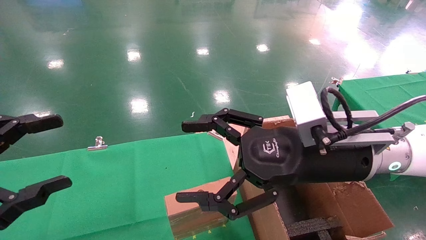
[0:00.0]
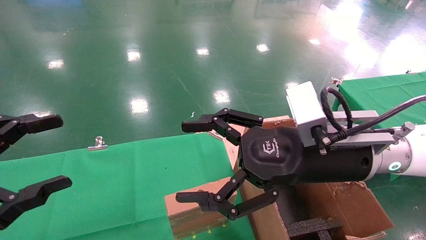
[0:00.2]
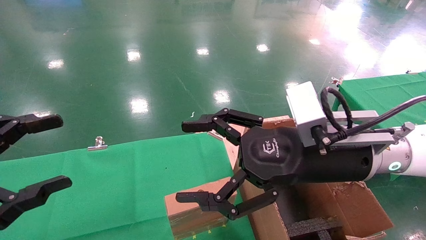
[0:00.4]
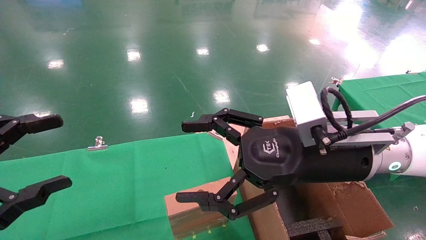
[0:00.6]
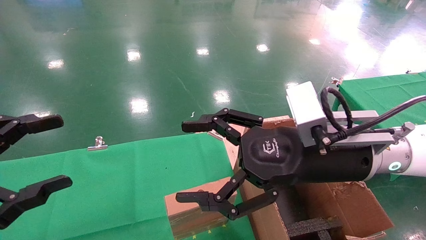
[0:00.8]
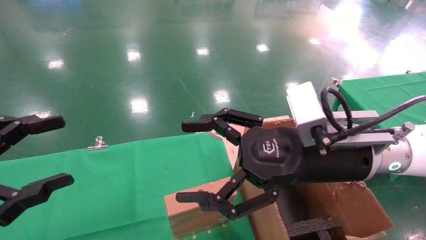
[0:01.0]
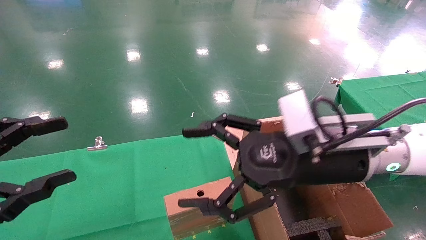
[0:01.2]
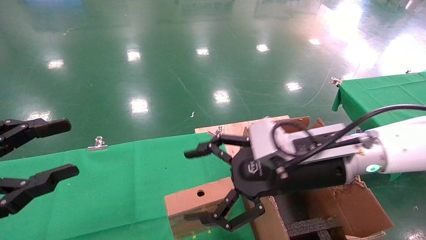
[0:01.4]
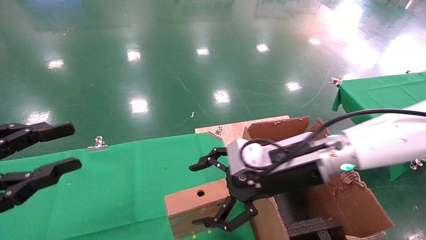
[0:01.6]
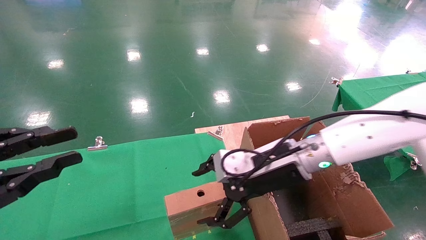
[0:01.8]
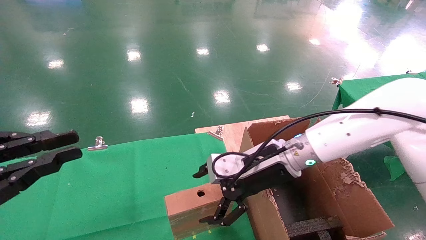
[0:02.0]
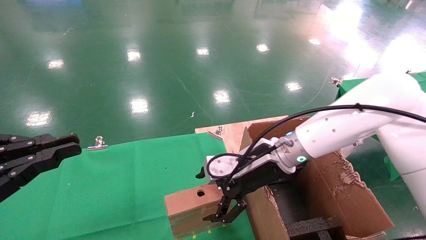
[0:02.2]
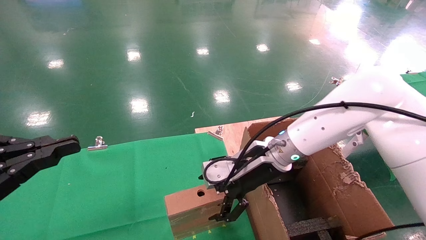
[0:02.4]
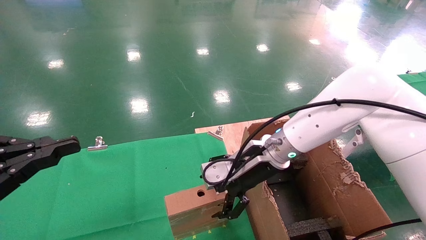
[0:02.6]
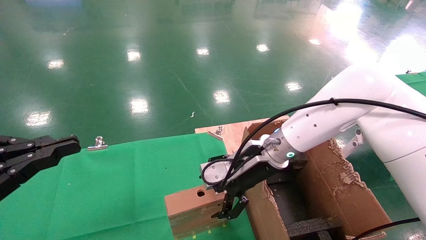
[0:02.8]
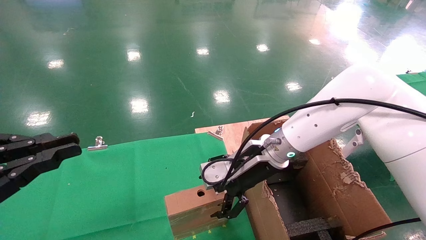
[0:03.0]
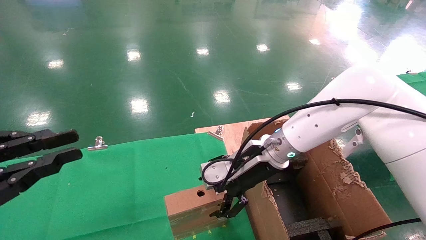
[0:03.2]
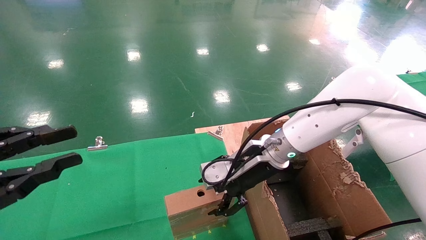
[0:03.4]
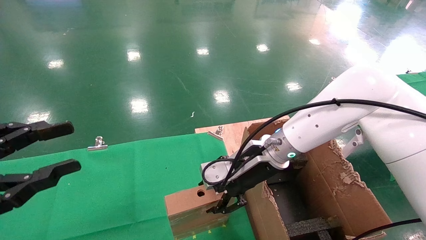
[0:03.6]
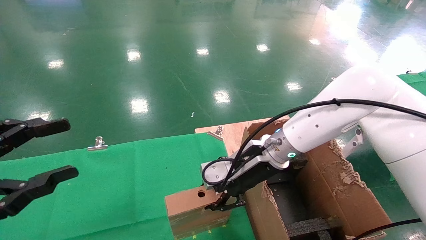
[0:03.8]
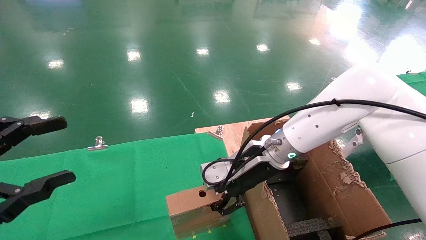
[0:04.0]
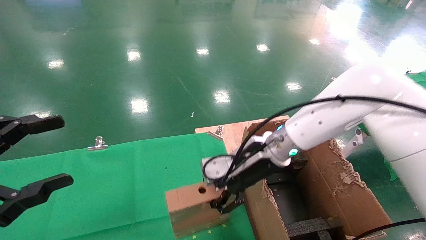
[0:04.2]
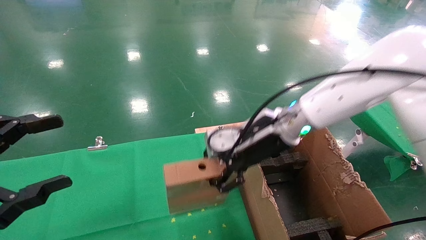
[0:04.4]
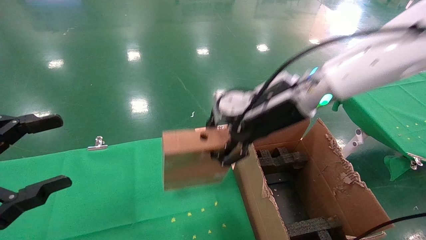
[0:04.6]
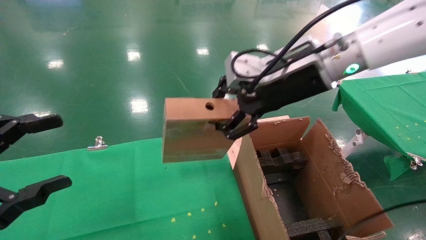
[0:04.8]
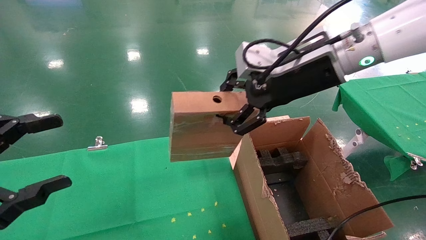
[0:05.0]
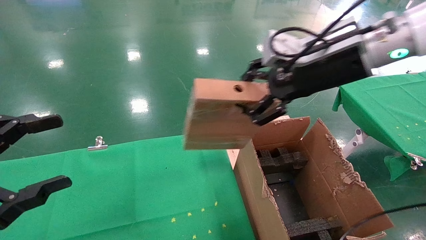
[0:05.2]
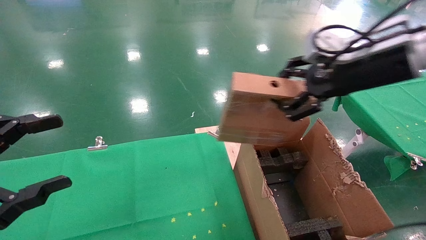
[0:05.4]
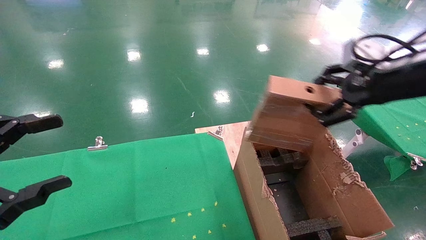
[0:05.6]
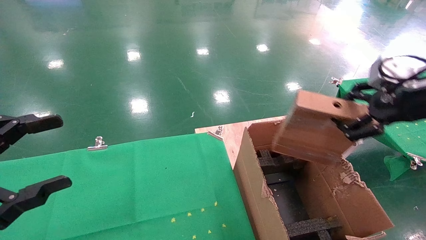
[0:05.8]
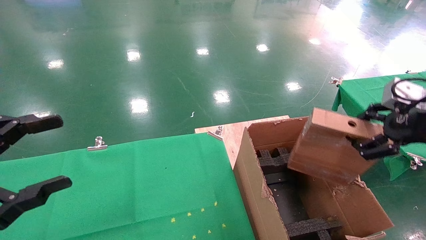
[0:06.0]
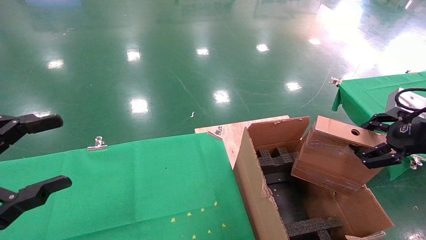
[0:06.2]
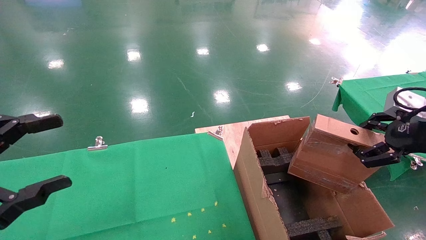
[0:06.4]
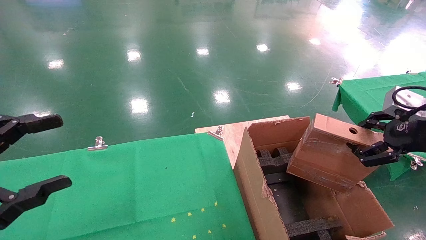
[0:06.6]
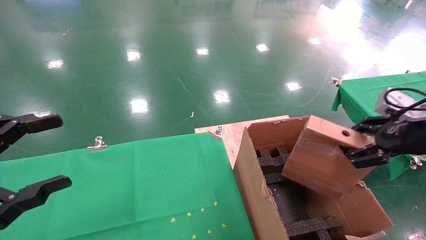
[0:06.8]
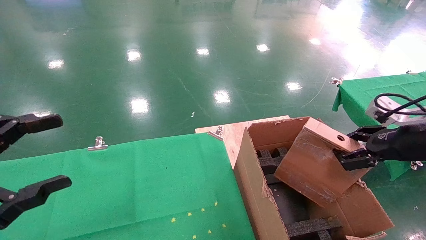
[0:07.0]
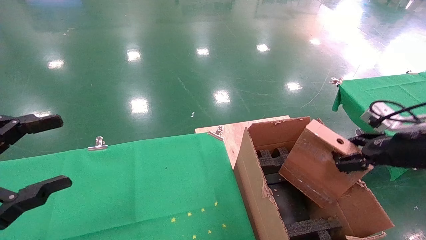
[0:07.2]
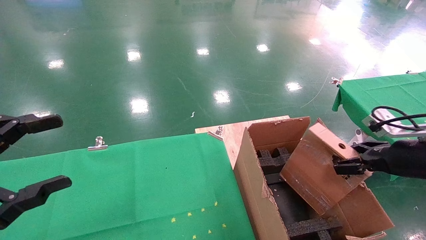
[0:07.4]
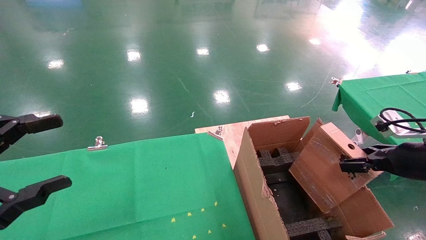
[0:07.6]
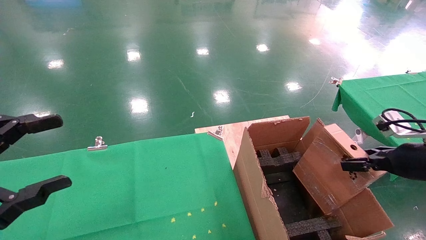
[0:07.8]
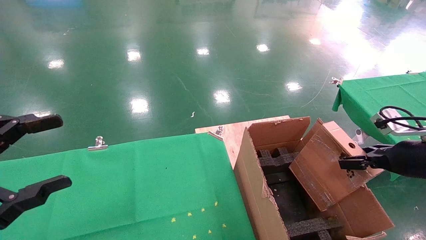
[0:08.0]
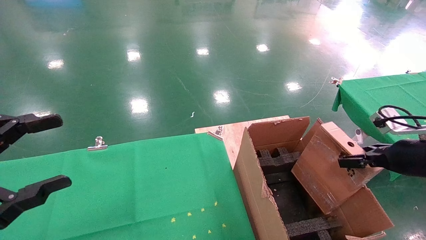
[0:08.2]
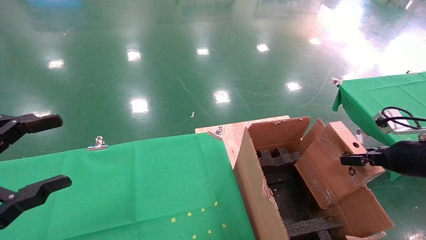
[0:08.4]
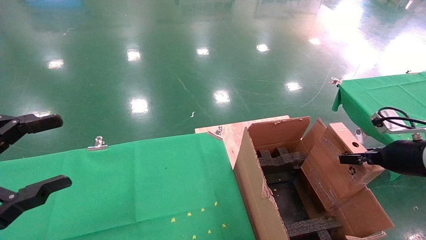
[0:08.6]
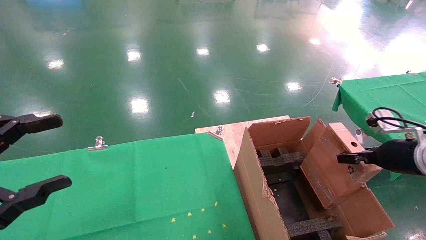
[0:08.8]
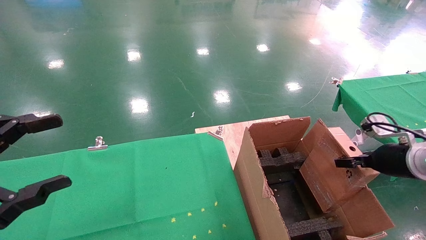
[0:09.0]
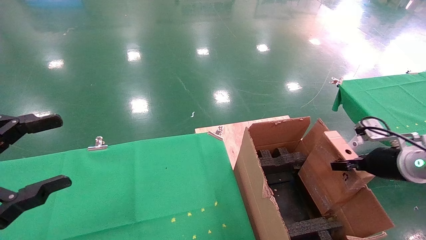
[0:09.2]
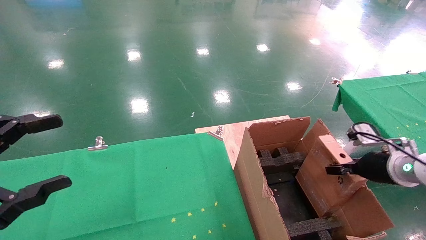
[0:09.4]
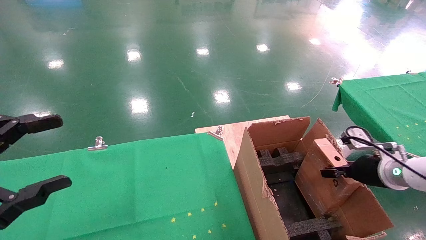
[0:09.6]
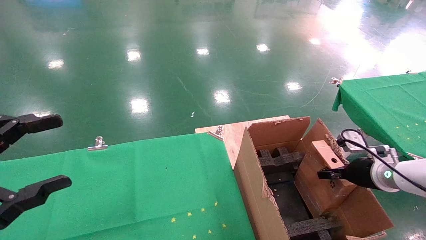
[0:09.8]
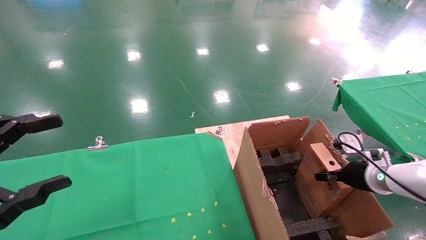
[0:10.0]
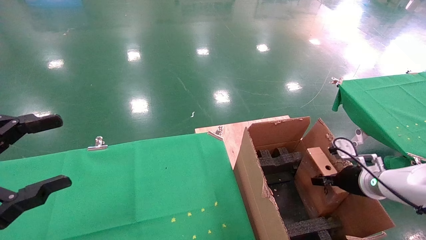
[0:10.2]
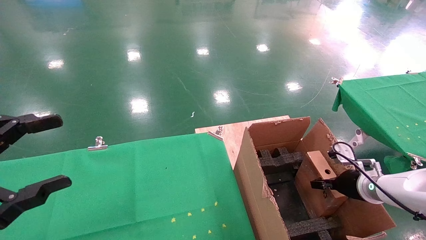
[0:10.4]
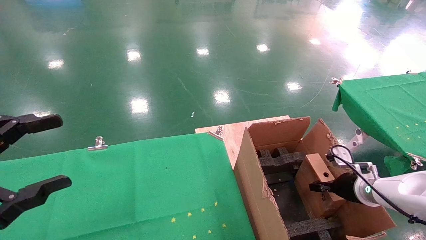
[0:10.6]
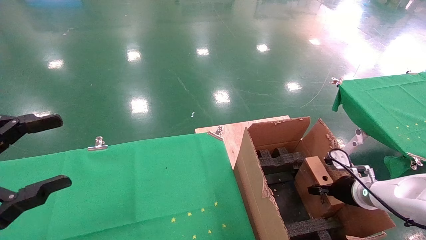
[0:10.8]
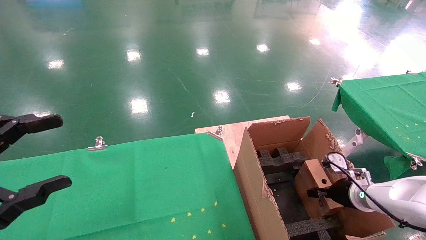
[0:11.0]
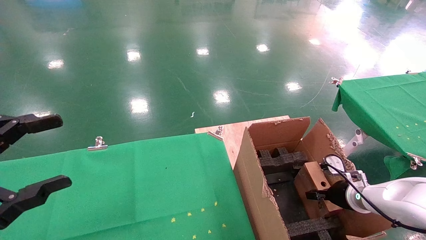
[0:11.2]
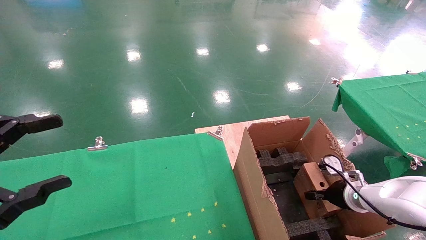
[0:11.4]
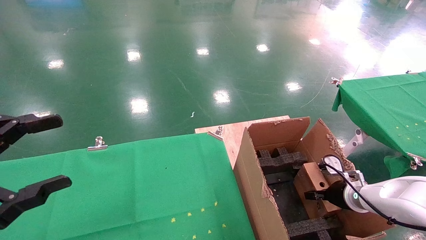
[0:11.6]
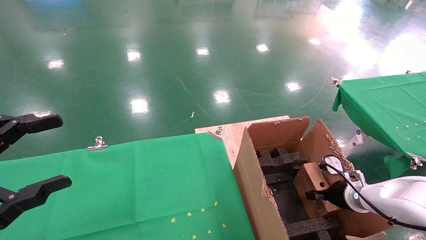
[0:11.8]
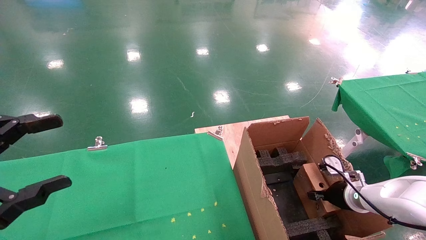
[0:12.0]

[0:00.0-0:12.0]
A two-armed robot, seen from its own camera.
Task of the whole recording: using a robotic arm to pick up a cardboard box and palace it the carton.
Step, 0:01.2 to 0:03.8: Pick up the mouse and the power cord paper box.
0:00.0 to 0:01.6: The right gripper travels forward by approximately 5 cm; the left gripper closes up.
0:01.6 to 0:03.0: The left gripper closes up, while the right gripper goes some 5 cm forward.
0:03.0 to 0:04.4: The left gripper opens; the right gripper travels upward by some 5 cm, and closes.
0:04.4 to 0:06.0: The right gripper travels to the right and backward by approximately 30 cm.
0:06.0 to 0:07.6: The right gripper goes about 10 cm downward.
0:07.6 to 0:09.0: The right gripper changes place by approximately 5 cm.
0:09.0 to 0:10.4: The right gripper goes about 10 cm downward.
0:10.4 to 0:12.0: The grippers make only small movements.

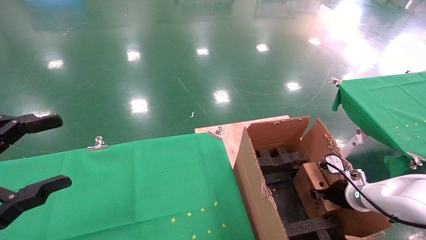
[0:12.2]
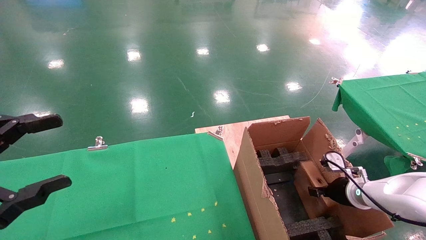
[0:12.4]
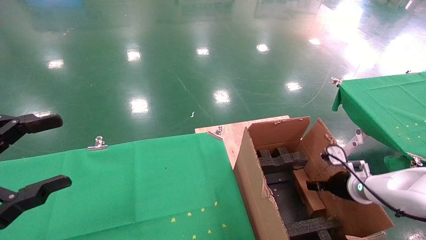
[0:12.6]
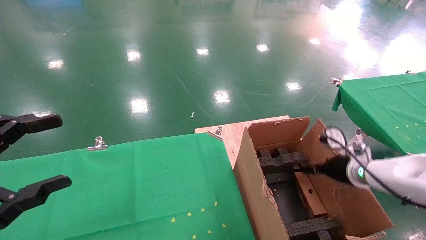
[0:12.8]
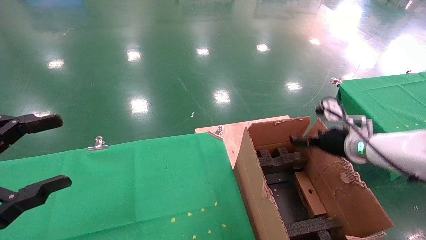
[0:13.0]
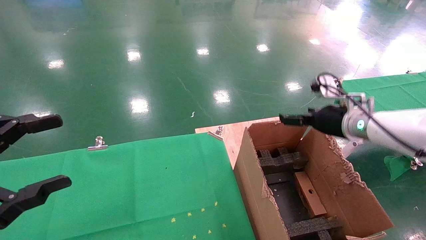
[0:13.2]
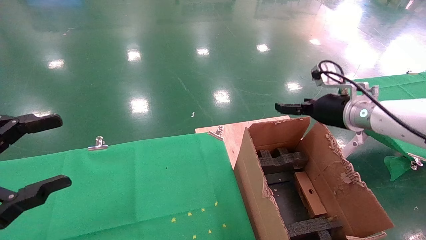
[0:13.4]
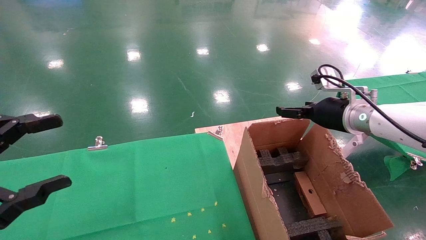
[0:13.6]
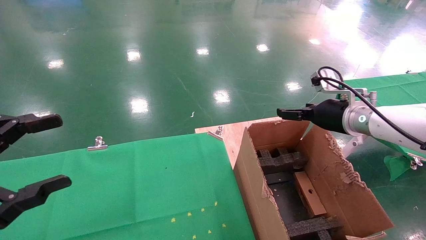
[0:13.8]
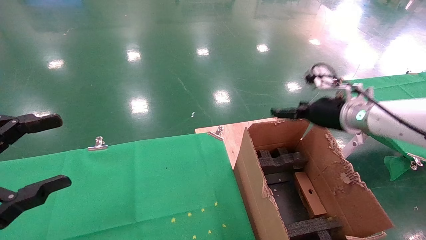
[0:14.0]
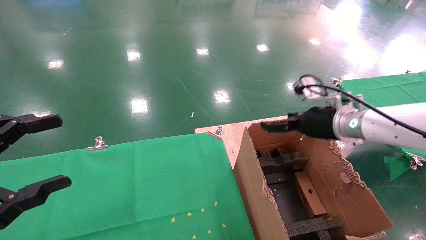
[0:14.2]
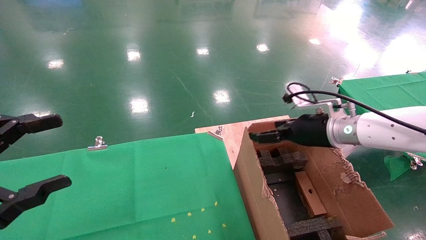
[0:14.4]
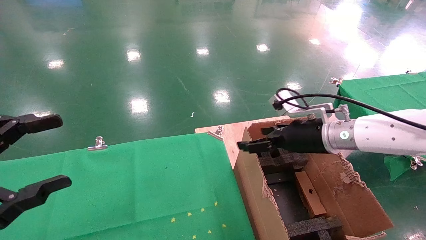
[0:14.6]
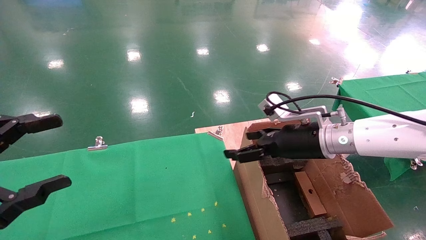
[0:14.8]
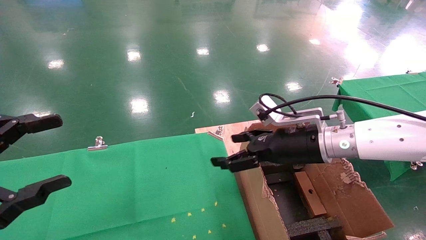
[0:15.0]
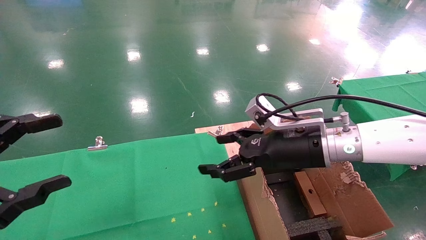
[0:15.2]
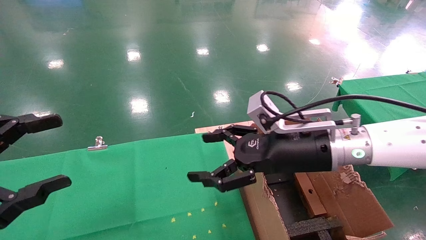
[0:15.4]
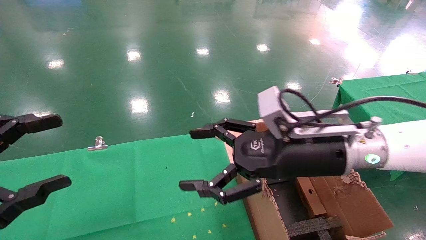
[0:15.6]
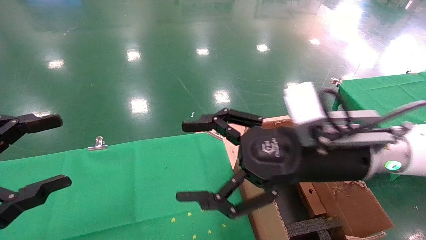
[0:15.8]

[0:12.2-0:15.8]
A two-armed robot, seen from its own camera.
Task of the whole recording: using a robotic arm to pick up a cardboard box and palace it the carton.
0:12.2 to 0:14.0: The right gripper is displaced upward by some 20 cm, and opens its fingers.
0:14.0 to 0:15.8: The right gripper shifts roughly 20 cm to the left and backward.
